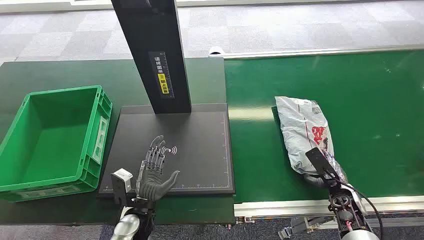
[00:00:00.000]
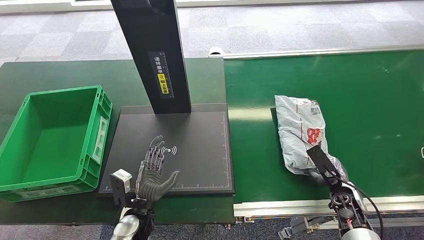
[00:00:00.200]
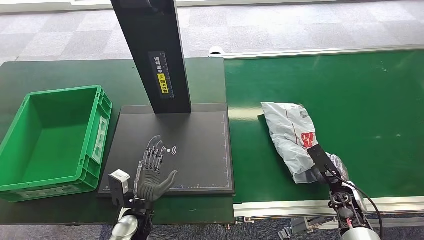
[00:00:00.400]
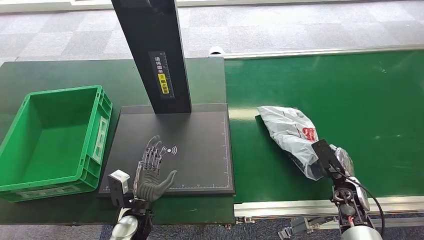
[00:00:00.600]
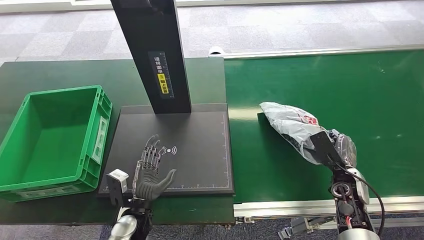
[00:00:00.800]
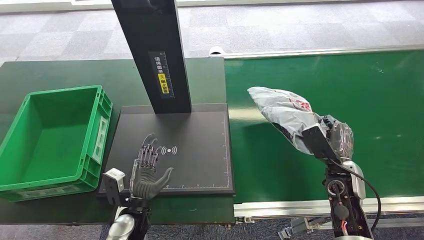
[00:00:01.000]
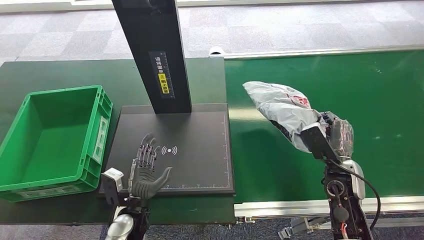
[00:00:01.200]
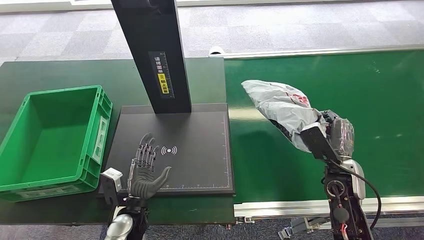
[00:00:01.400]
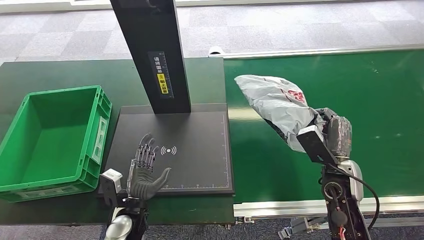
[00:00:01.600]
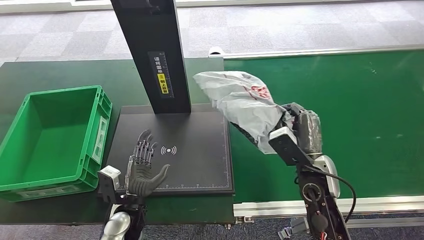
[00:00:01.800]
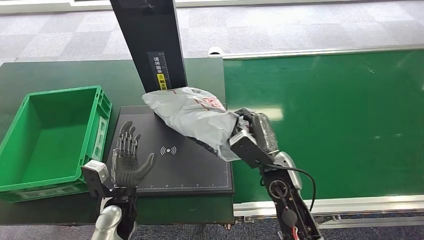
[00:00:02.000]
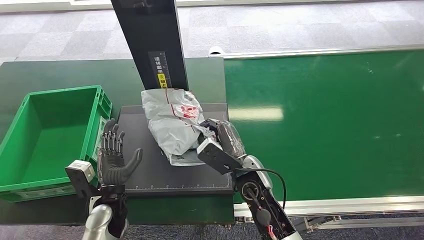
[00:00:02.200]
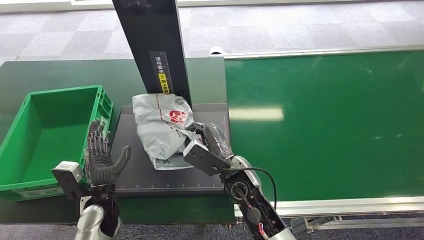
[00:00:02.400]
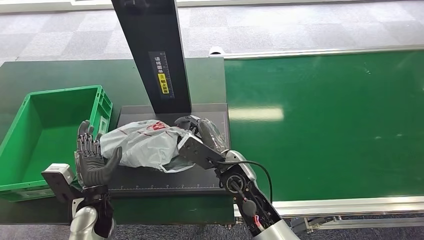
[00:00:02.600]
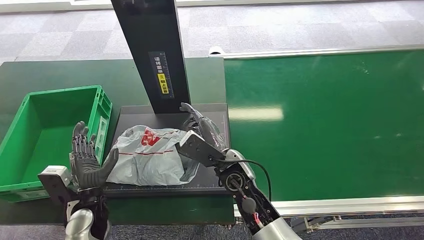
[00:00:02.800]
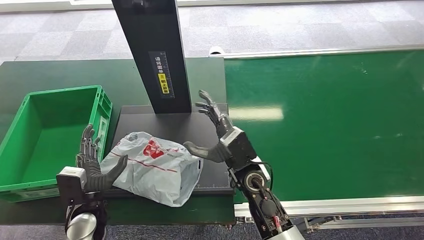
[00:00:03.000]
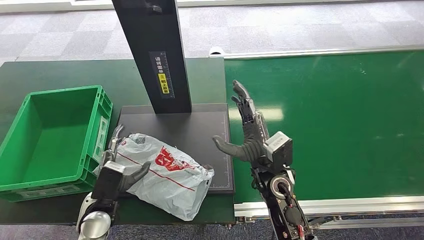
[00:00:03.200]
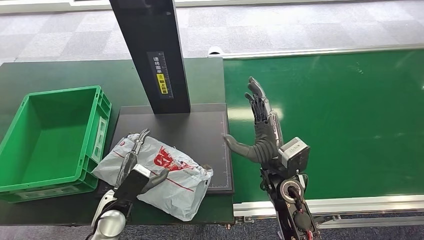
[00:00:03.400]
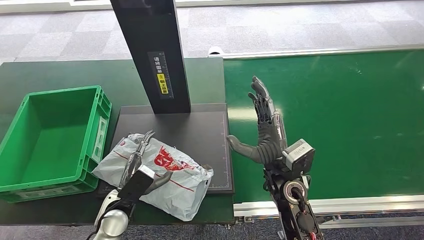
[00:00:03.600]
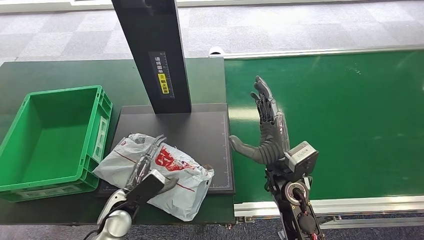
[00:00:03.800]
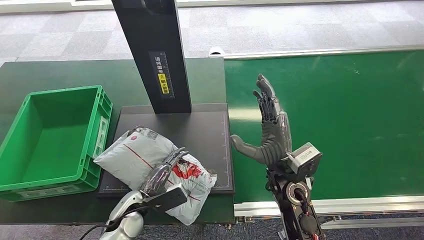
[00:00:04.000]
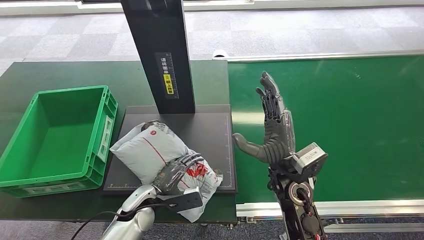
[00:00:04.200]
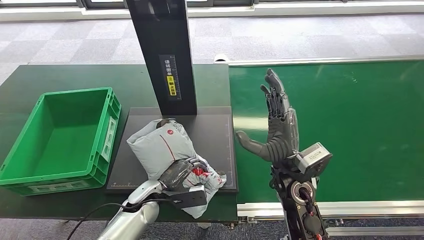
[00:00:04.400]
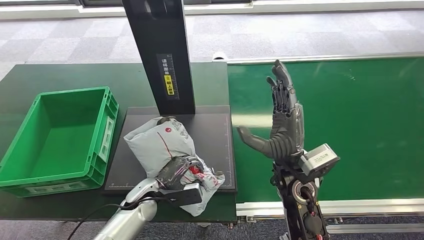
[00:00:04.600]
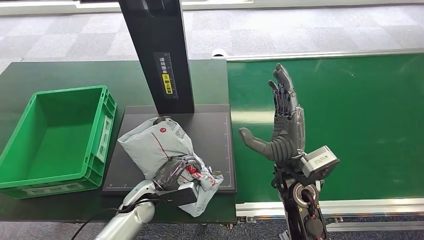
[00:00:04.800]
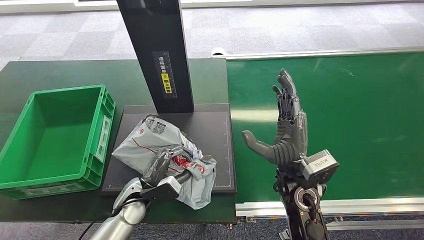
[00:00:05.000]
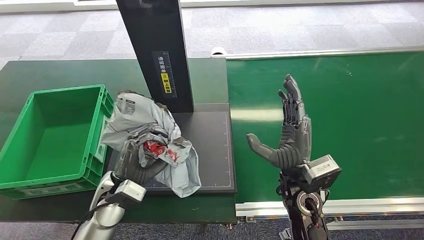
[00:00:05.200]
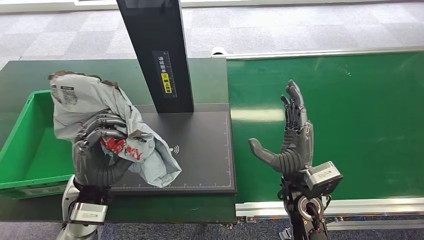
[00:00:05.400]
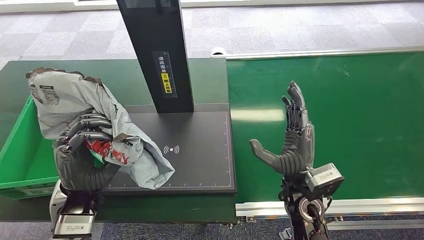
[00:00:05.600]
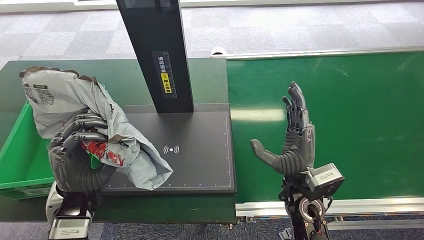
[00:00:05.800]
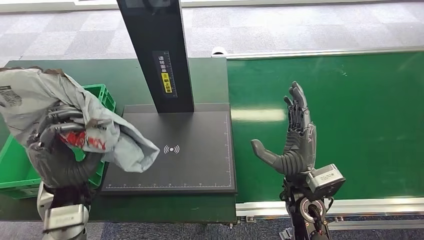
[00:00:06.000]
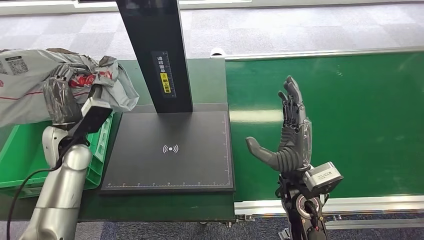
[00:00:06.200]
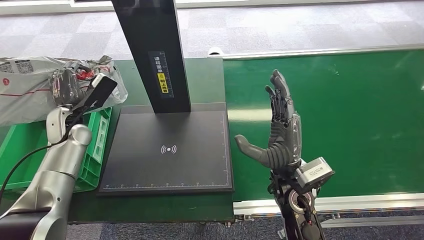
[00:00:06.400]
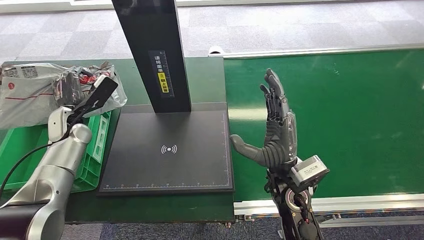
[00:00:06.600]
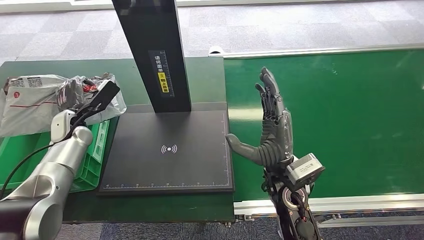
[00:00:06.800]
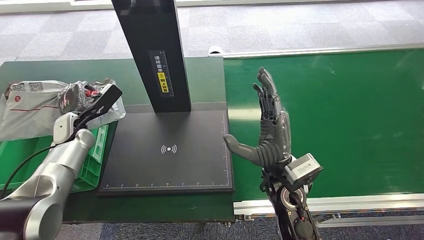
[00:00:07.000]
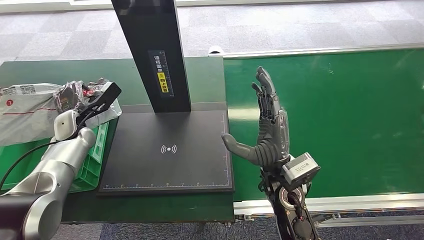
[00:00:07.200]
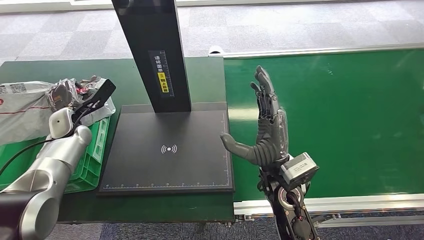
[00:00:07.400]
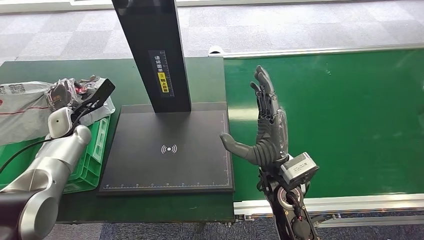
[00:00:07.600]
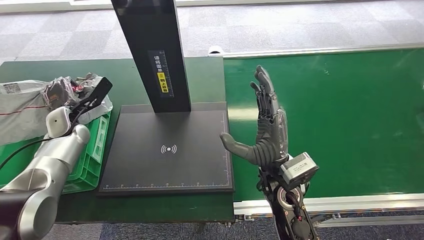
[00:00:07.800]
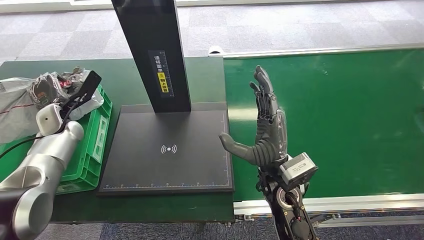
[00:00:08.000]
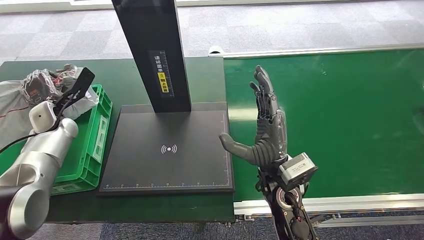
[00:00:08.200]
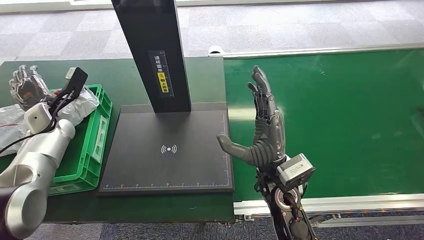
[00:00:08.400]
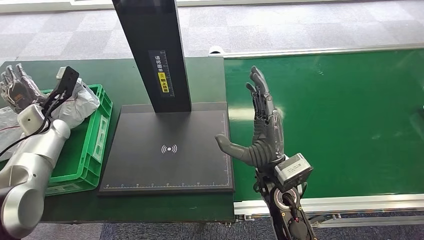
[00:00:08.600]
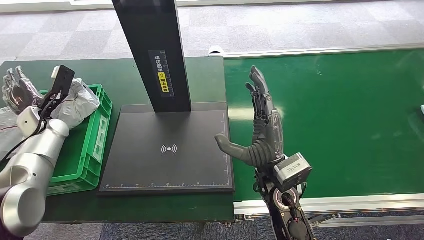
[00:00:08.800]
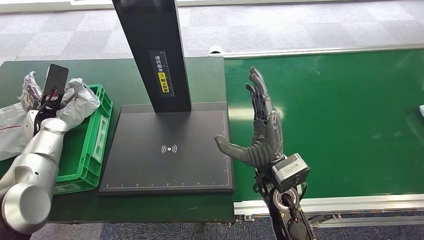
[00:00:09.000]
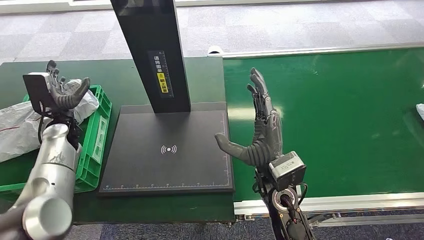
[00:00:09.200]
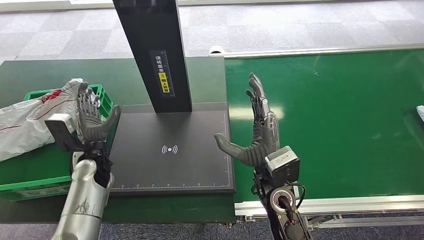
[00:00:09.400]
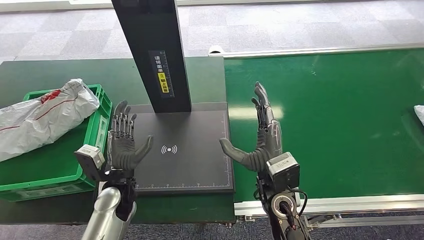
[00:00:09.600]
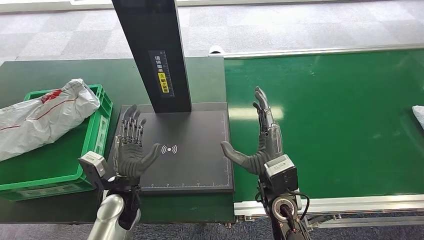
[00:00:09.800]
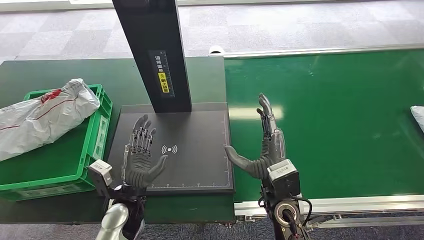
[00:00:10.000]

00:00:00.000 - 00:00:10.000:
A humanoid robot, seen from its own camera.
Task of the whole recording: Weigh the package on the weighing device and place it in the left basket.
Step, 00:00:00.000 - 00:00:01.400: Pick up the package from the conveyor belt.
Step, 00:00:01.800 - 00:00:03.800: Place the package onto the inbound machine.
Step, 00:00:04.000 - 00:00:05.600: Pick up the package from the inbound machine.
Step, 00:00:05.800 - 00:00:09.800: Place the package into the parcel locker.
00:00:07.200 - 00:00:08.600: The left hand shifts approximately 5 cm to the left.
00:00:08.600 - 00:00:10.000: The right hand heads downward, covering approximately 5 cm. The left hand heads to the right and backward, covering about 35 cm.
